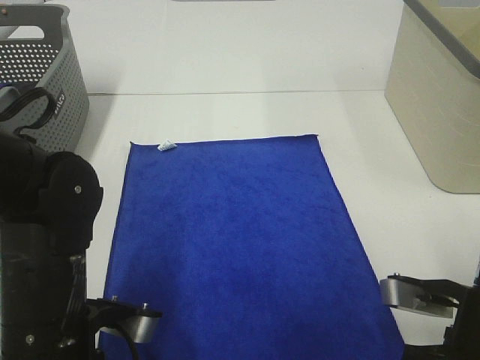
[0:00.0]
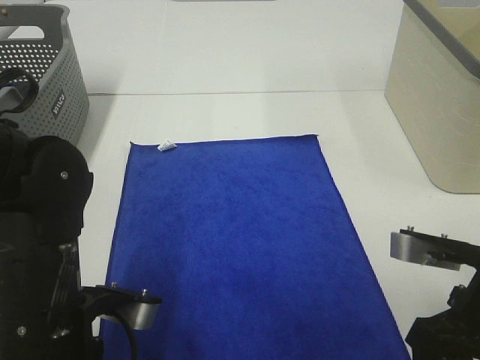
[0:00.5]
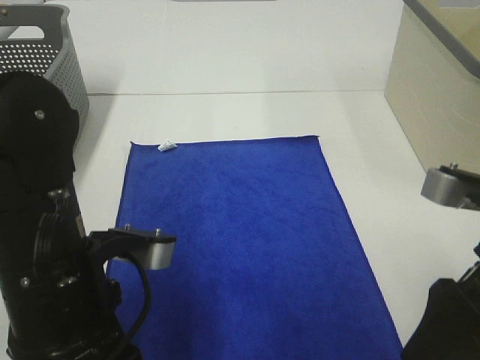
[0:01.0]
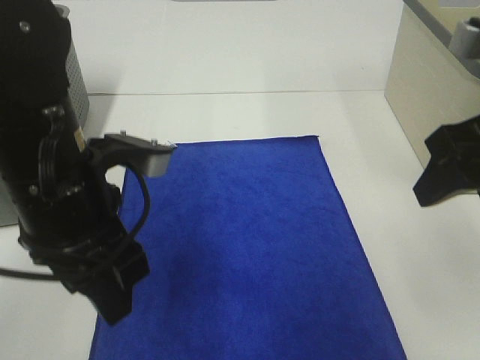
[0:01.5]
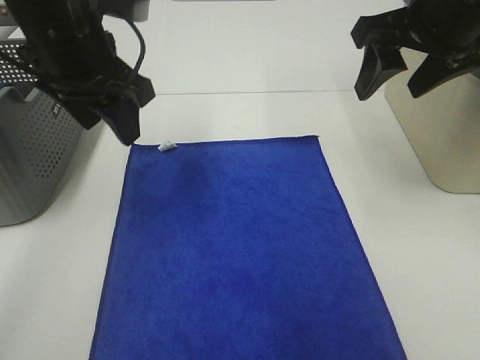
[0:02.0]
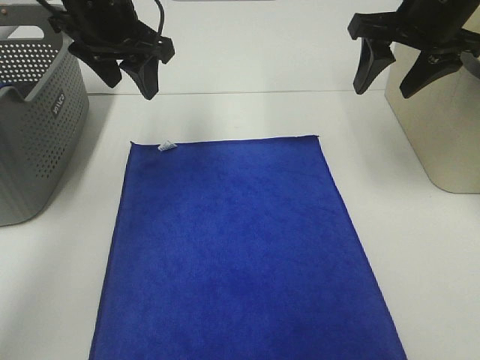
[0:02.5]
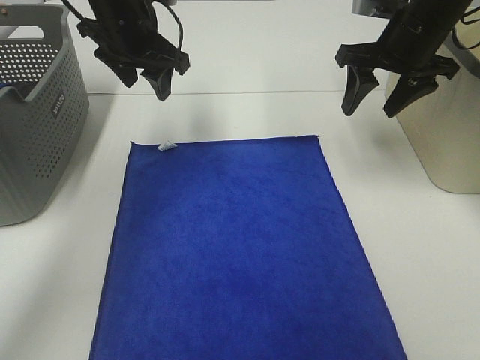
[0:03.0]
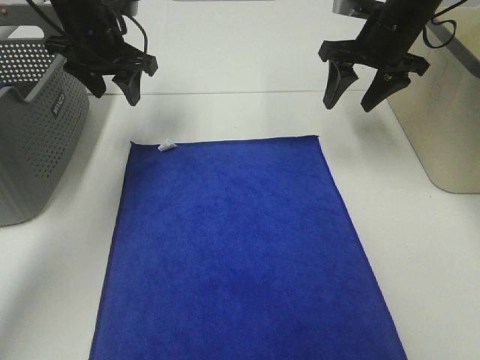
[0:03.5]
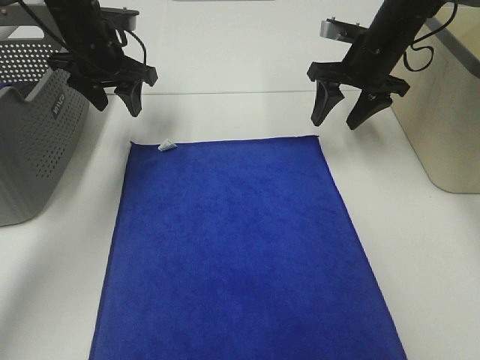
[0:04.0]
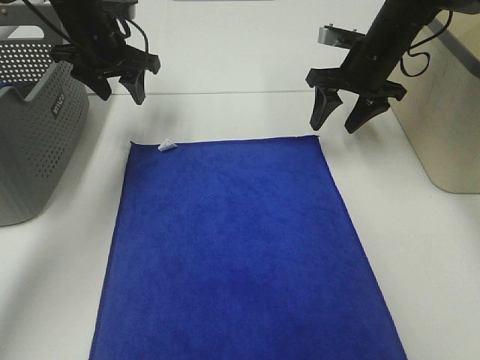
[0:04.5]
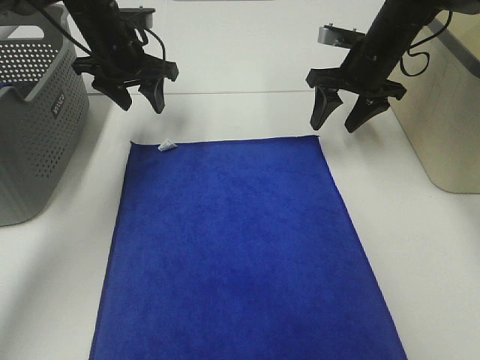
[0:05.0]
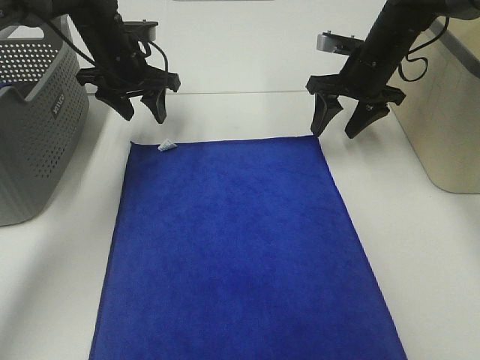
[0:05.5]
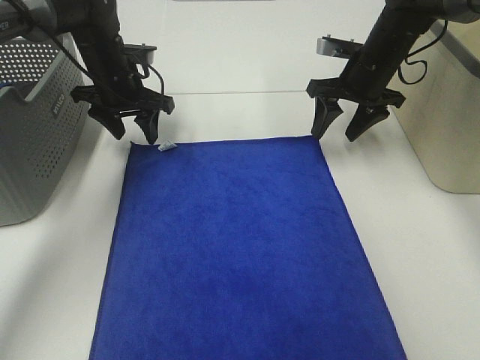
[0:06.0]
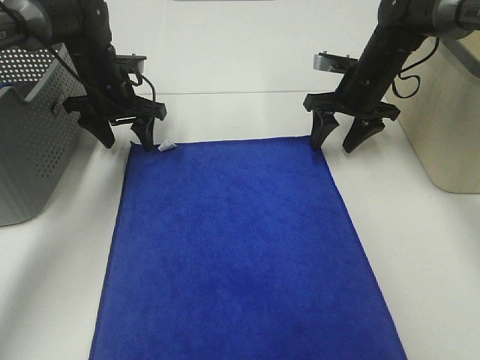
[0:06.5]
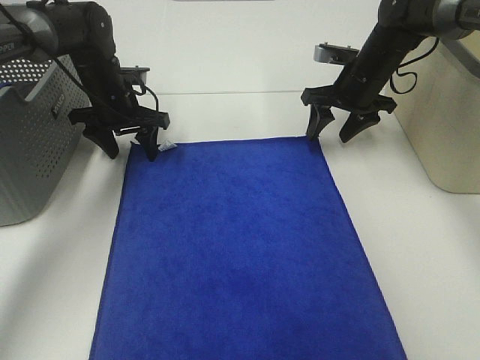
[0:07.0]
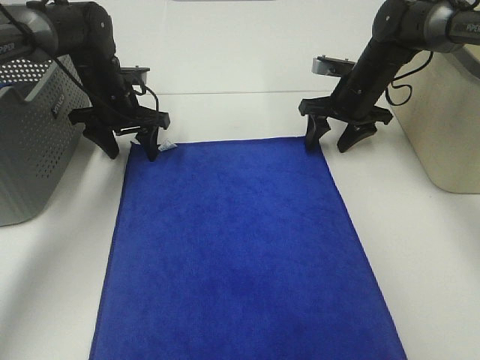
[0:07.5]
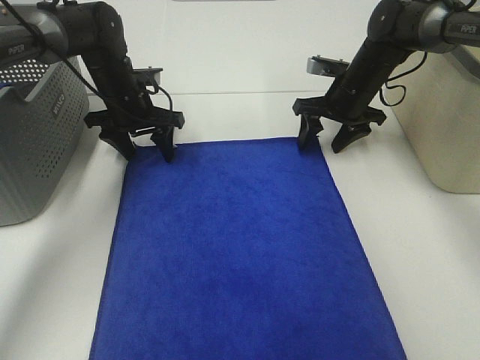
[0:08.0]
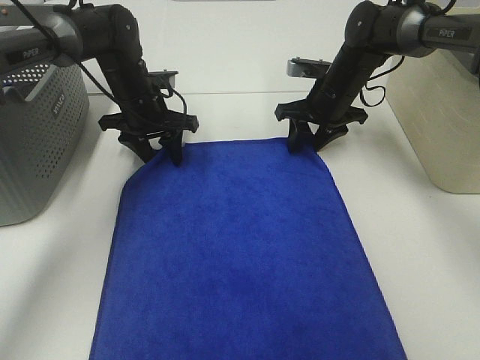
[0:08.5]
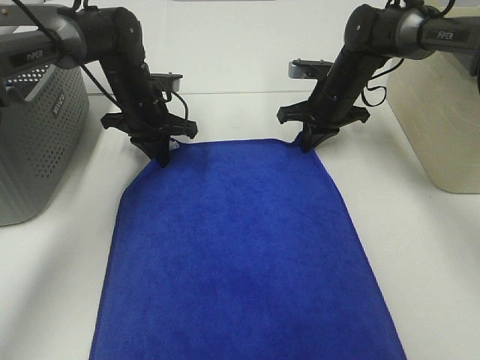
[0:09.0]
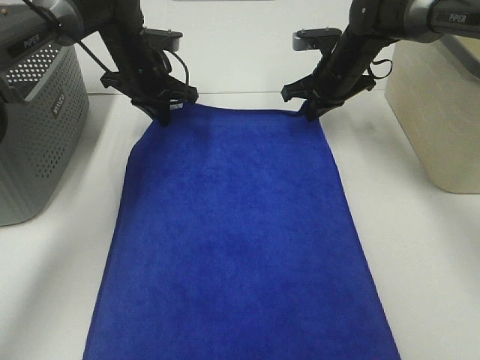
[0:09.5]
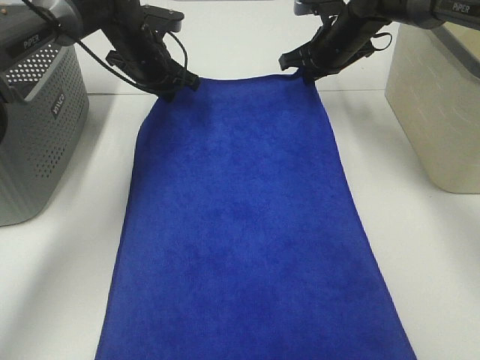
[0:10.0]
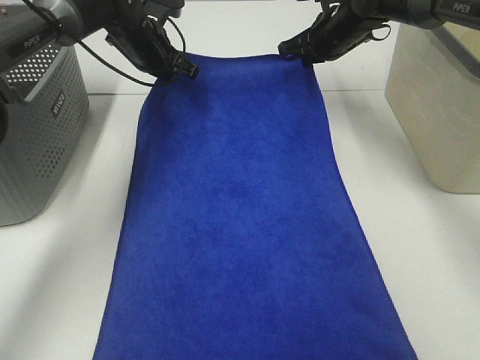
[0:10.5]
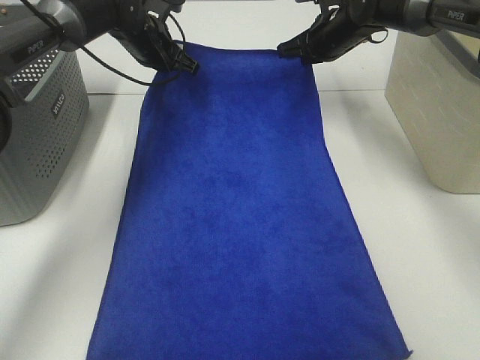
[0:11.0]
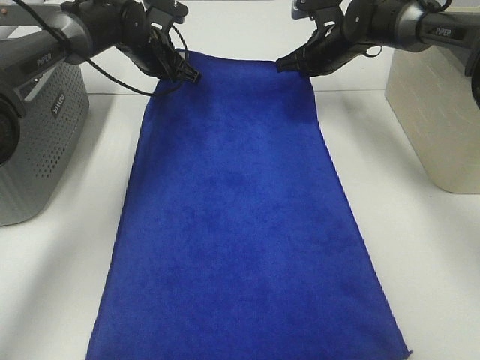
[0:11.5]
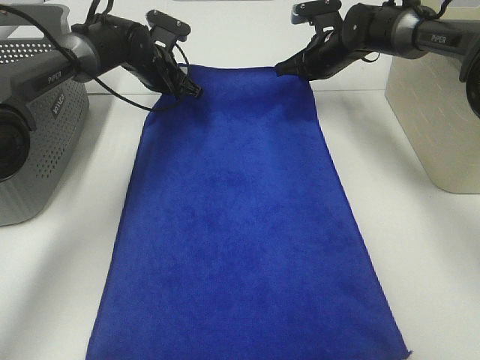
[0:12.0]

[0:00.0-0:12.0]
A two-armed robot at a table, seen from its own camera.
Task of the whole recording: Remove the towel and place it.
Step, 0.0 to 6.5 s: Left hand:adjust the blue towel.
Step, 0.0 to 6.5 s: Right hand:adjust the blue towel.
0.0 to 2.0 s: The two grippers go about 25 cm forward and upward.
2.0 to 4.0 s: The two grippers go about 20 cm forward and downward.
4.0 to 6.0 s: The left gripper shifts by approximately 5 cm.
6.0 to 8.0 s: The grippers stay close to where they were, moving slightly.
8.0 to 10.0 s: The grippers both shift upward by some 5 cm. The left gripper closes its fingers, while the right gripper closes its fingers.
10.0 to 12.0 s: The left gripper shifts by roughly 5 cm.

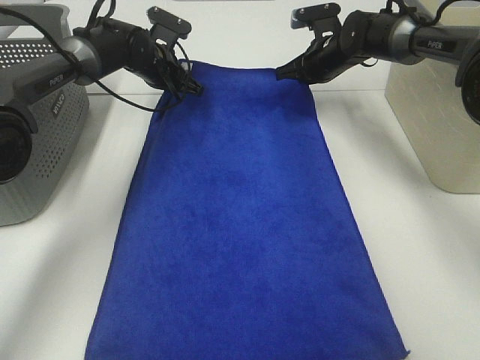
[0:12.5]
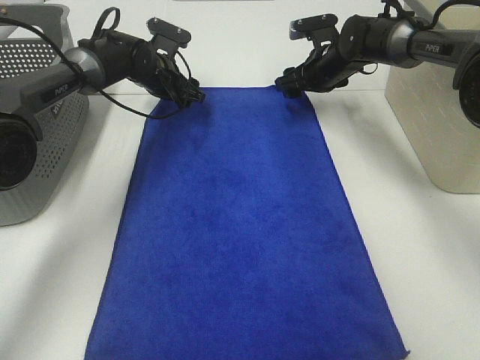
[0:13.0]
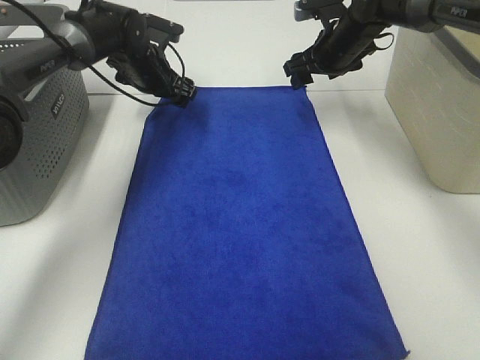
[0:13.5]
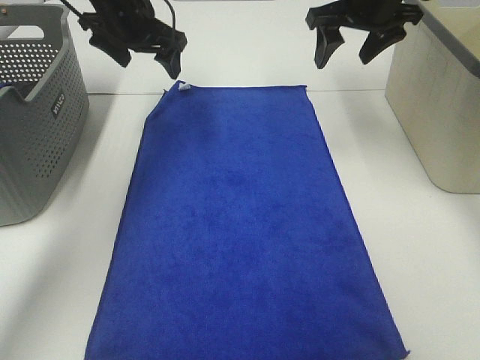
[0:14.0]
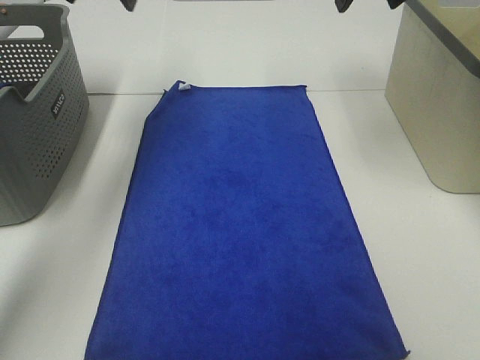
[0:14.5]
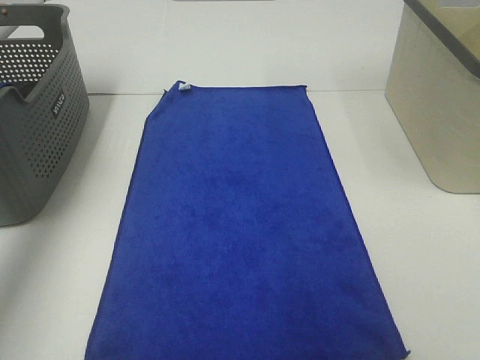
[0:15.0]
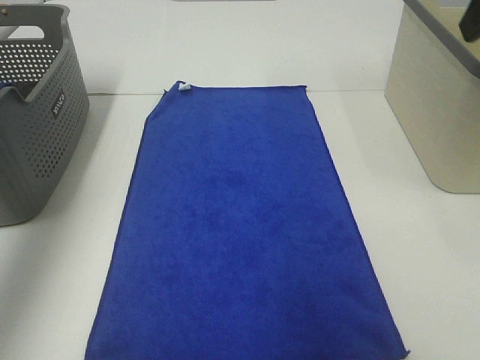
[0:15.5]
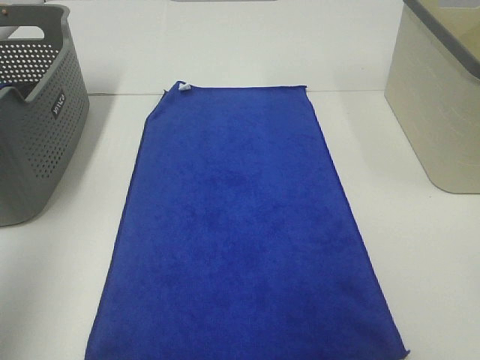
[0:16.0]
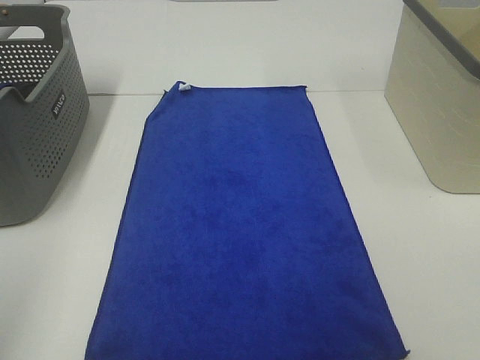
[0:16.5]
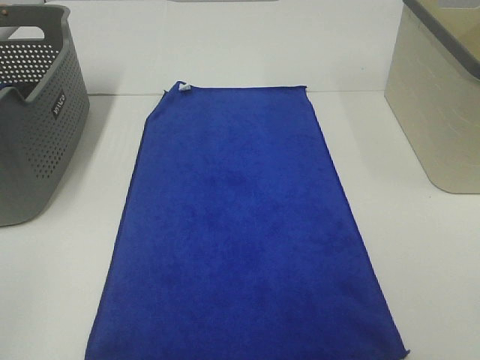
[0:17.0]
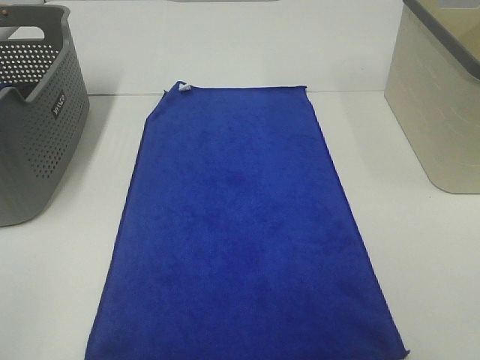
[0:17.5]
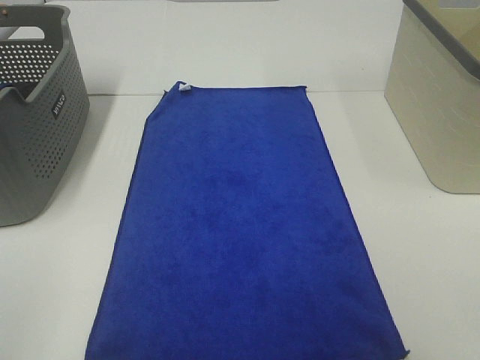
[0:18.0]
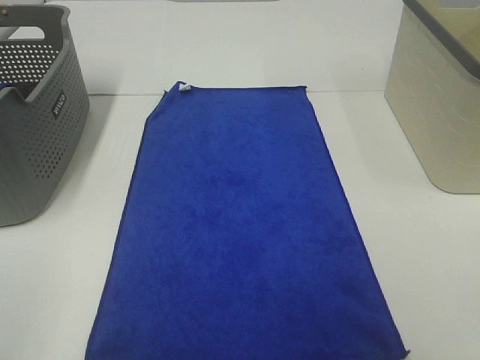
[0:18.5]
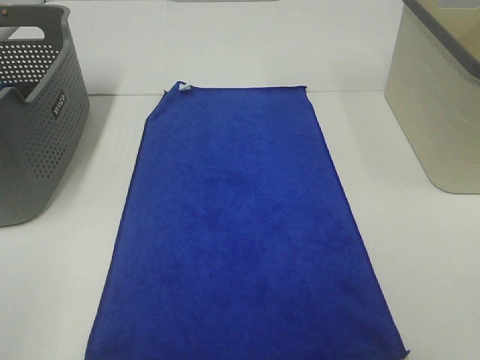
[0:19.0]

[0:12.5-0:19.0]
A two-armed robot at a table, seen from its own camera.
Task of the whole recording: Remove the towel and place it.
12.5 to 14.5 s: The right gripper goes about 25 cm upward and backward, and opens its fingers. The left gripper is displaced upward by approximately 20 cm, and opens up.
14.5 to 17.0 s: The two grippers go some 50 cm backward.

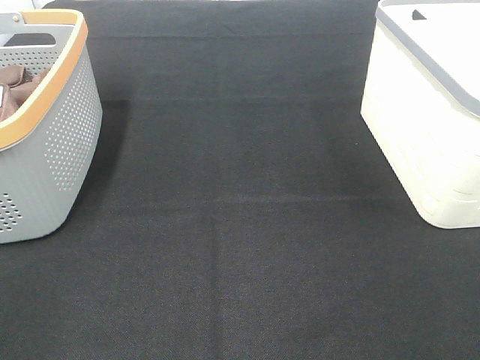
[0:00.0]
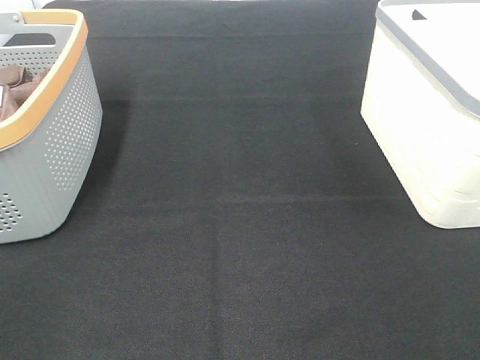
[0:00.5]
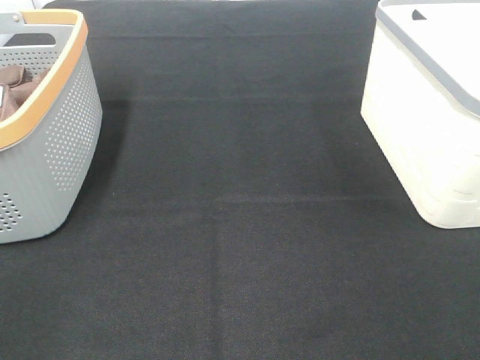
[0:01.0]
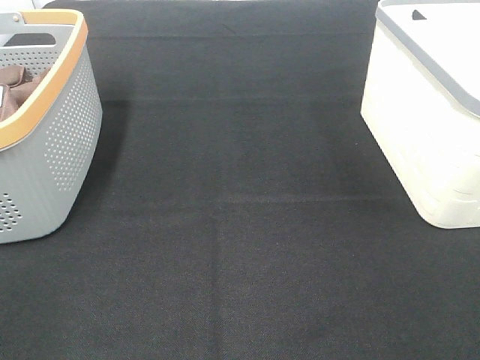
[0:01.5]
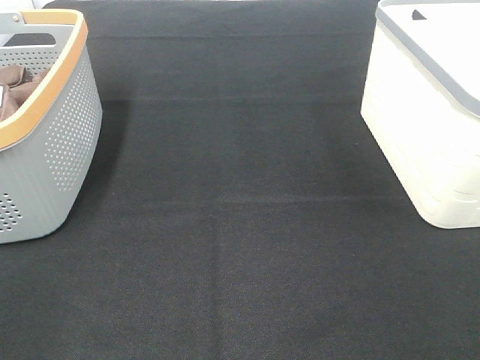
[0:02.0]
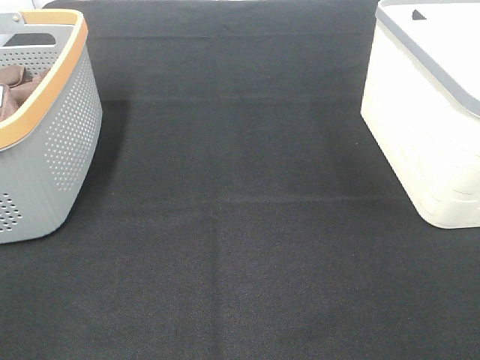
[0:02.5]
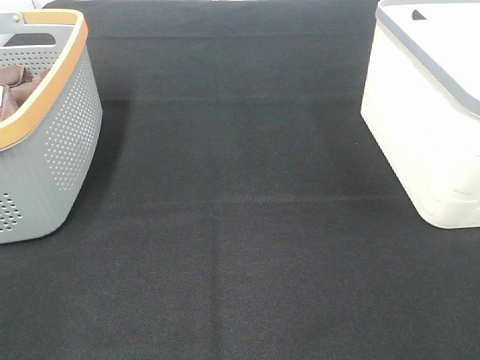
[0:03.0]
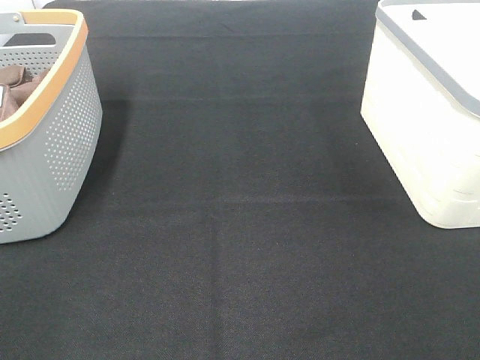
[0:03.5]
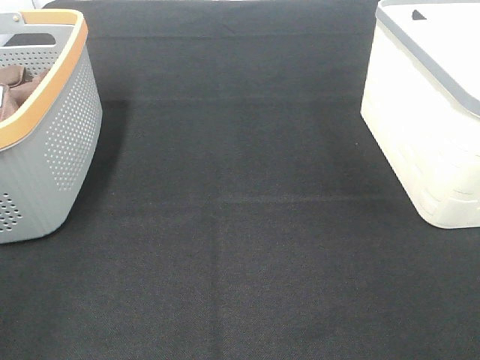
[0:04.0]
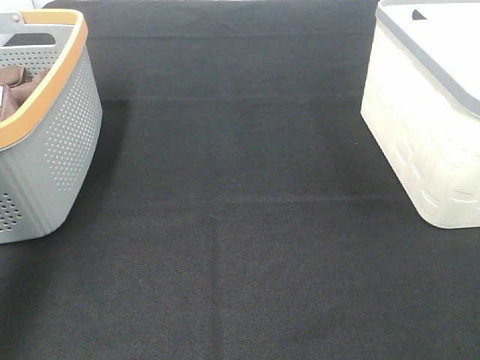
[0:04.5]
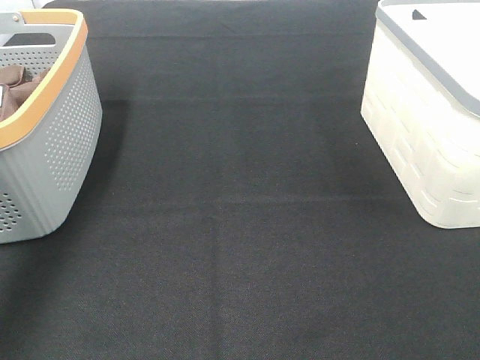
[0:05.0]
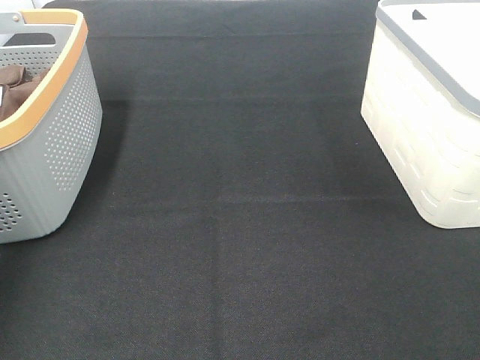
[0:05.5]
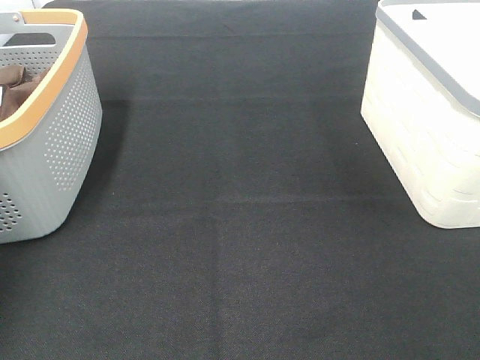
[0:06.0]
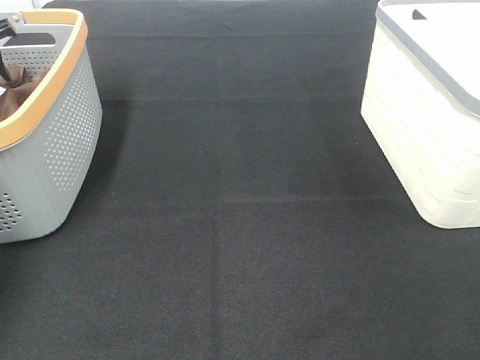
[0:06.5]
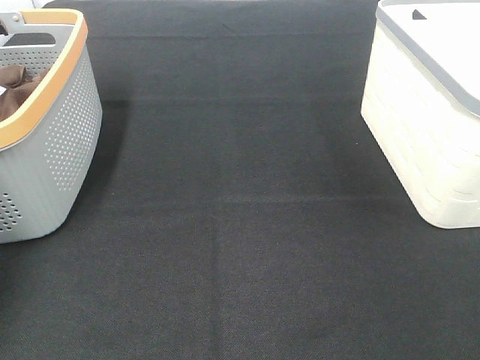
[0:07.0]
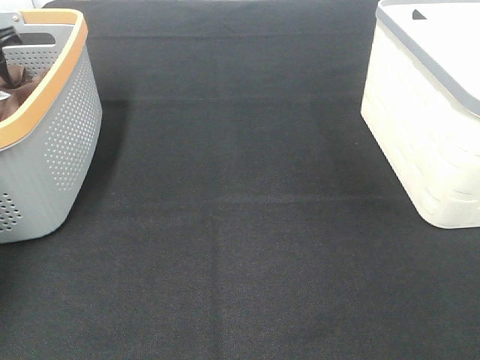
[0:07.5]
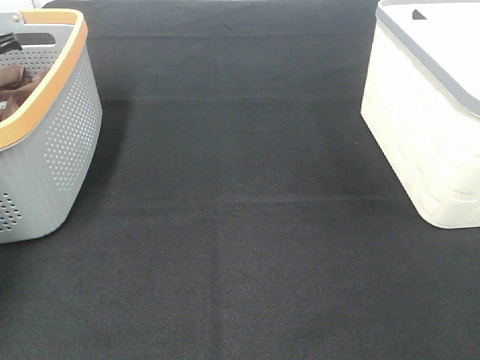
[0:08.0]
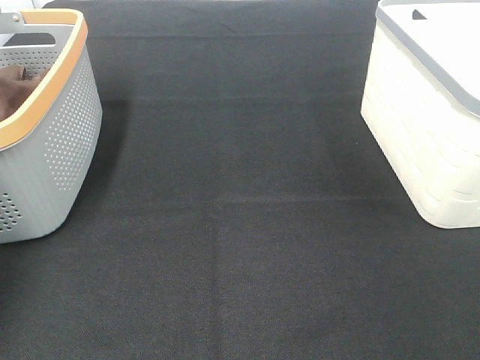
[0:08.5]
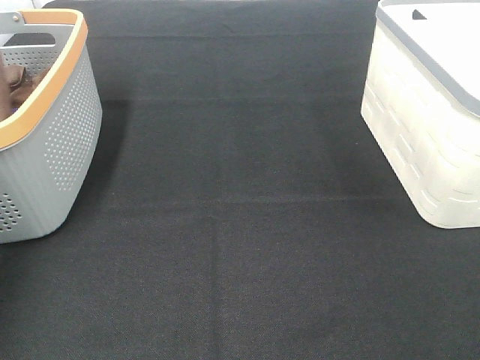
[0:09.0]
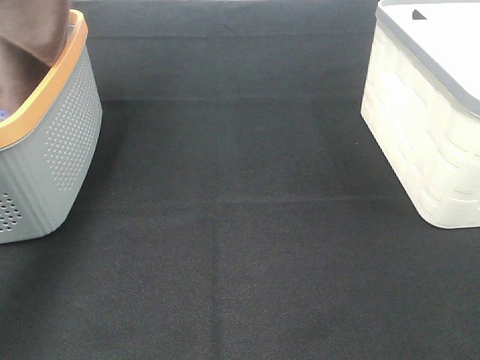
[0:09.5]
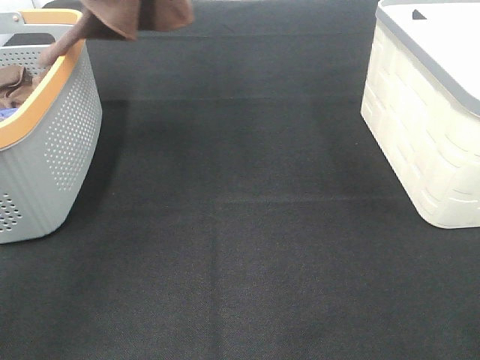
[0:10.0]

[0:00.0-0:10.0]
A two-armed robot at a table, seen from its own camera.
Task of the whole recording: Remove the towel and place it.
0.0 to 2.0 s: Neither gripper changes place.
4.0 to 6.0 s: The left gripper heads forward, covering roughly 40 cm.
8.0 to 10.0 s: The right gripper shifts by some 5 cm; the left gripper moves upward and to the right, approximately 40 cm.
